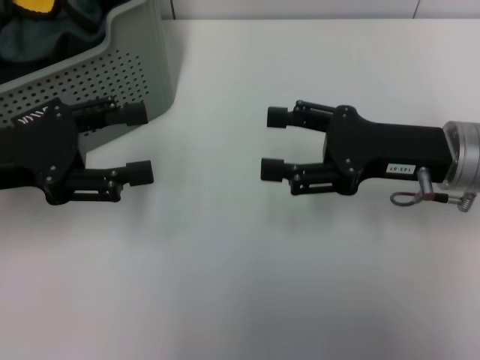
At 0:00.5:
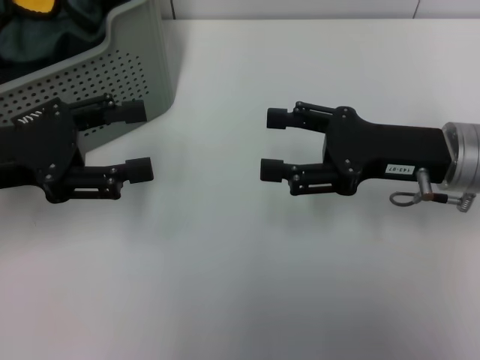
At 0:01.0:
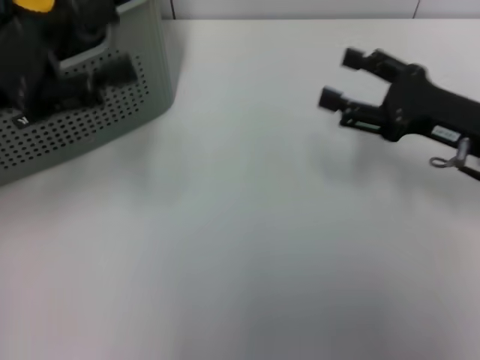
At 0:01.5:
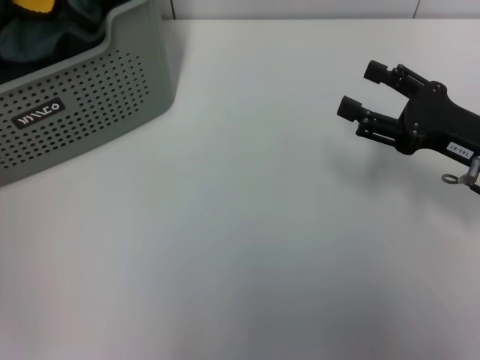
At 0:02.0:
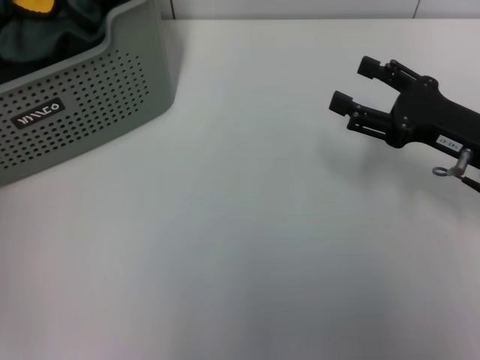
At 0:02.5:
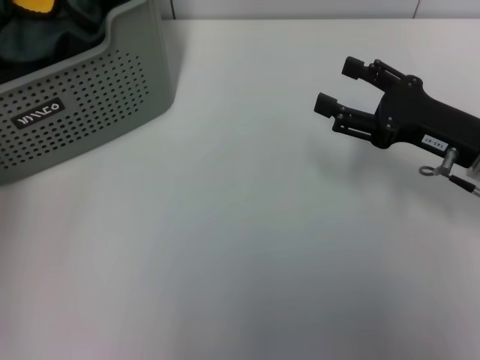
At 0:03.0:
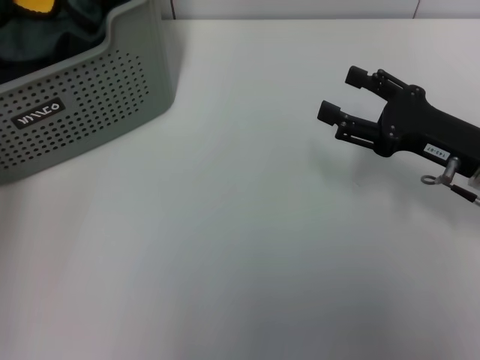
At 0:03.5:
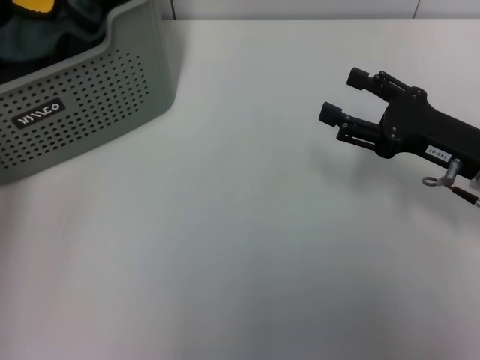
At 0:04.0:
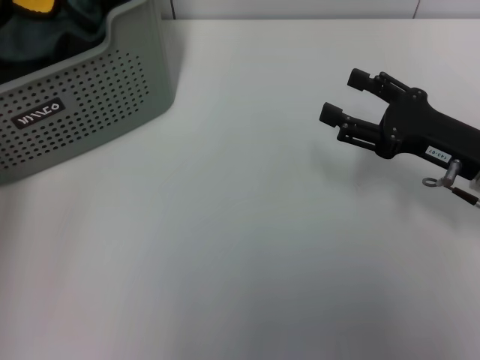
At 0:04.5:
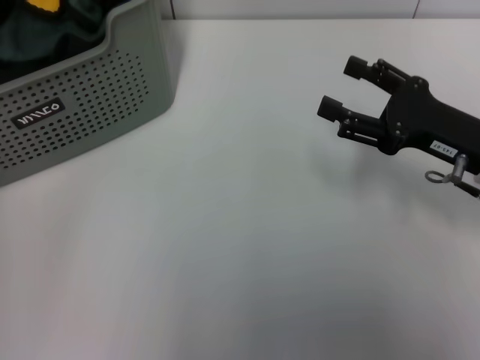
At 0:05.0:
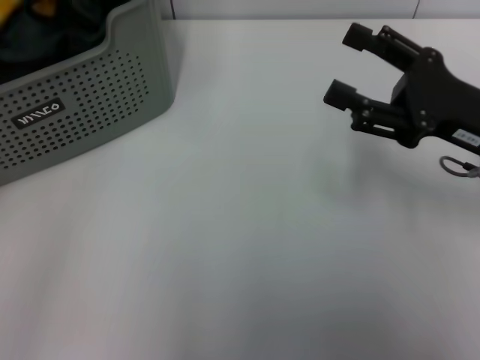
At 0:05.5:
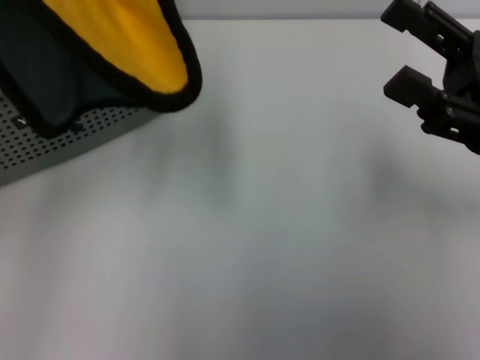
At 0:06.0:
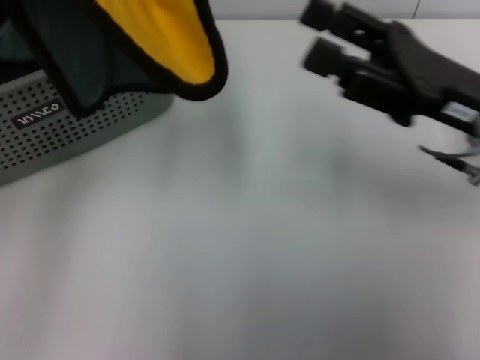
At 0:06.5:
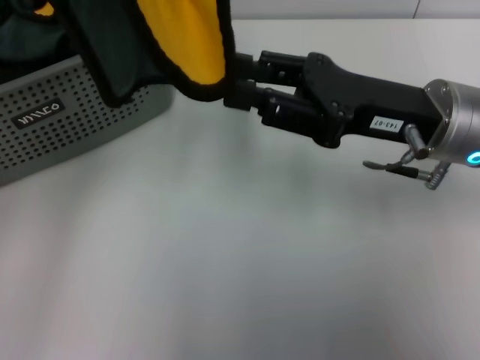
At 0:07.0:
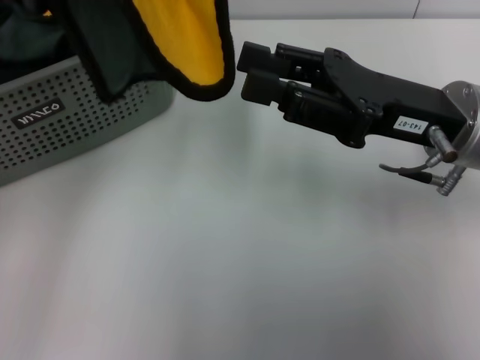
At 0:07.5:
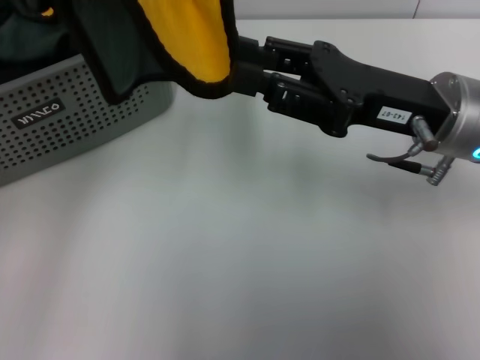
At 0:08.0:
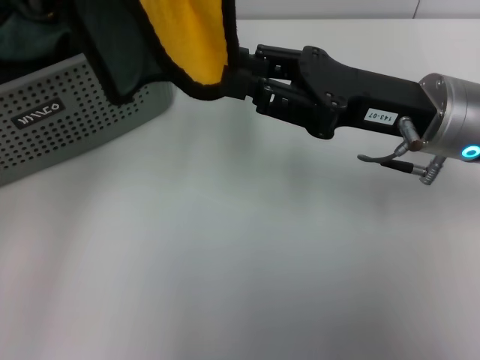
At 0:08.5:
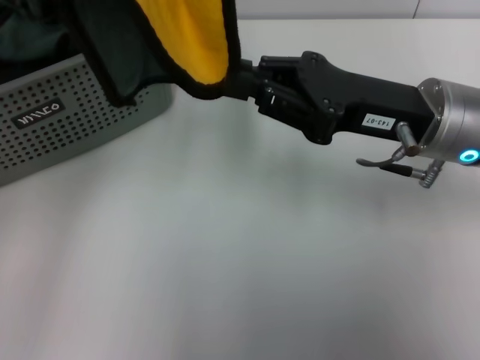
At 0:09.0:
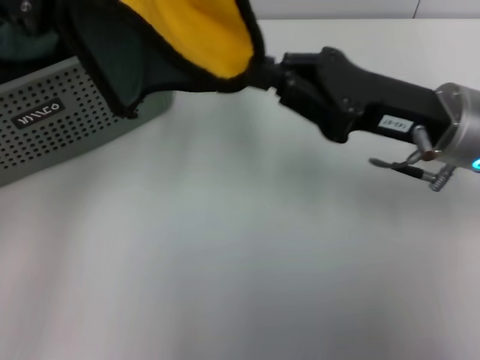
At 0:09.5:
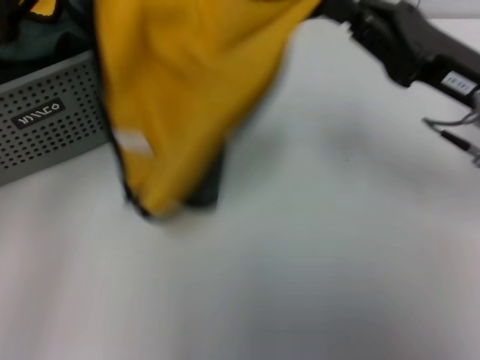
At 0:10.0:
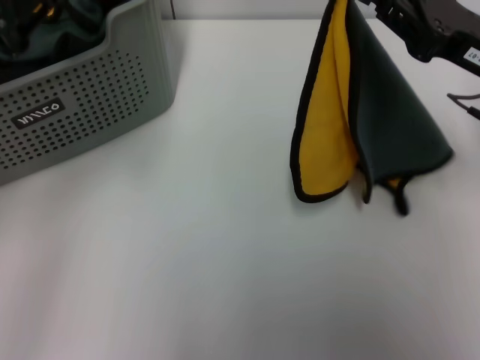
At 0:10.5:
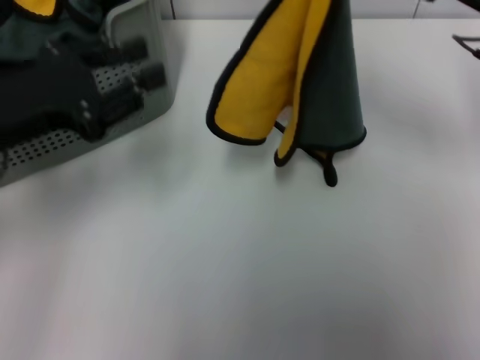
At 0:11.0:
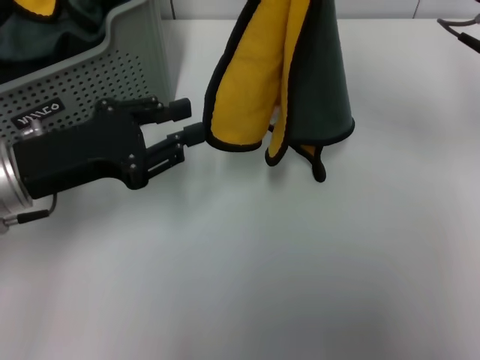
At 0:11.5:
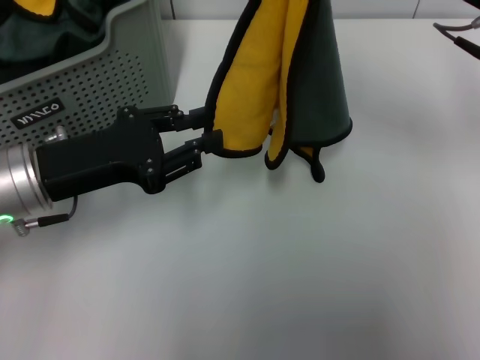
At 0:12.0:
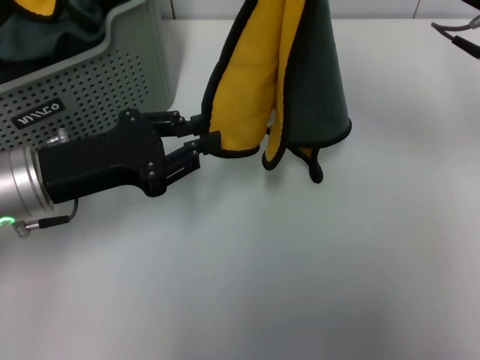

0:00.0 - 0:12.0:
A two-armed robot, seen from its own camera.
Task of the whole recording: pick up the towel from the storage box and lay it flat on the table.
Step, 0:00.0 - 0:03.5: Pick up a towel with the left gripper.
Step, 0:04.5 - 0:08.0: Spread the towel flat with the left gripper.
0:00.0 - 0:02.0: The right gripper moves to the right, roughly 5 cm, while the left gripper travels upward and forward by approximately 15 cm.
0:04.0 - 0:06.0: The right gripper moves upward, about 5 cm; the left gripper is displaced backward, upward and to the right by roughly 15 cm.
0:06.0 - 0:08.0: The right gripper closes its fingers.
0:08.0 - 0:10.0: The left gripper changes place by about 5 cm. The right gripper goes about 10 cm to the right, and closes.
0:10.0 - 0:12.0: The right gripper heads upward, covering approximately 5 cm; the left gripper is displaced downward and to the right by roughly 15 cm.

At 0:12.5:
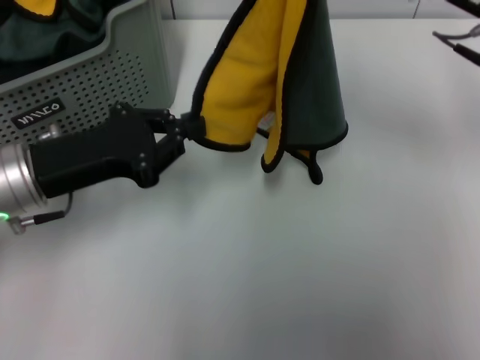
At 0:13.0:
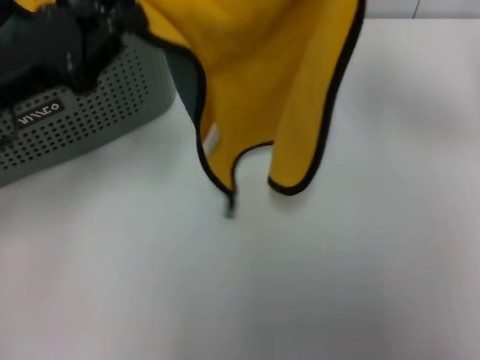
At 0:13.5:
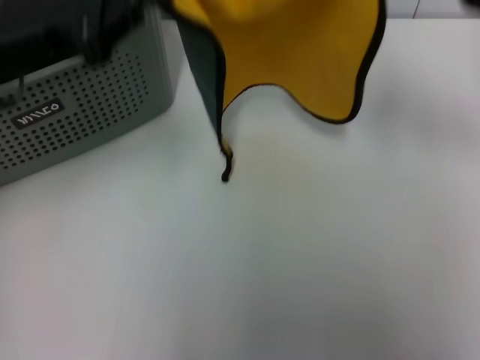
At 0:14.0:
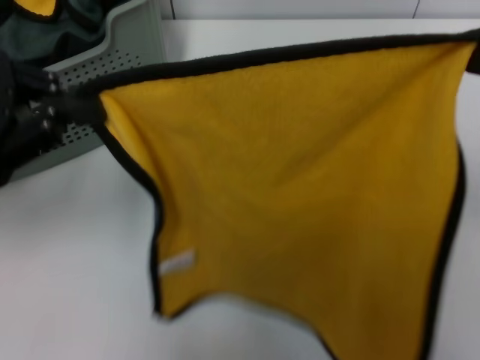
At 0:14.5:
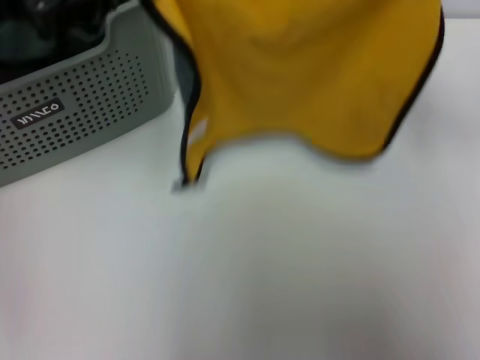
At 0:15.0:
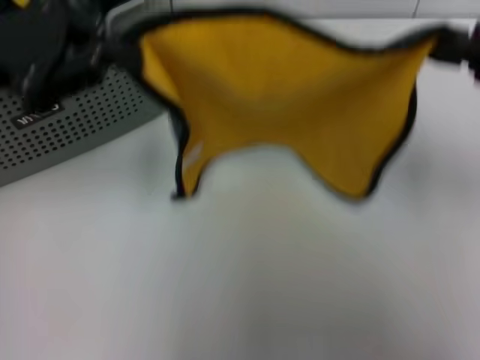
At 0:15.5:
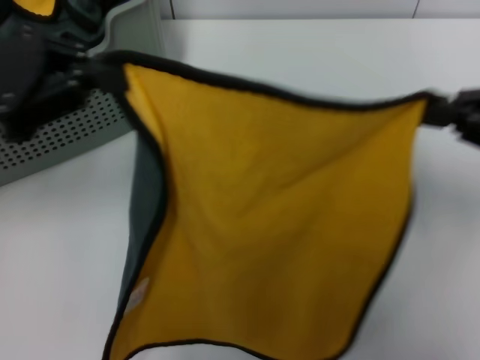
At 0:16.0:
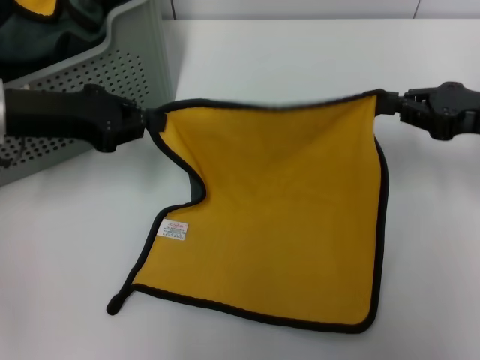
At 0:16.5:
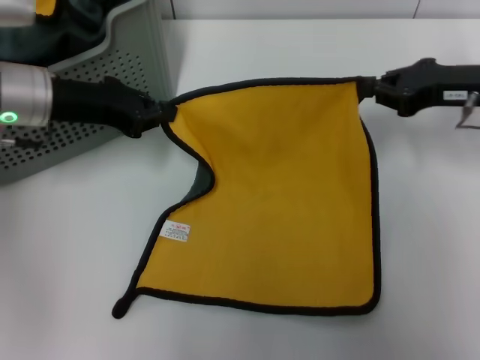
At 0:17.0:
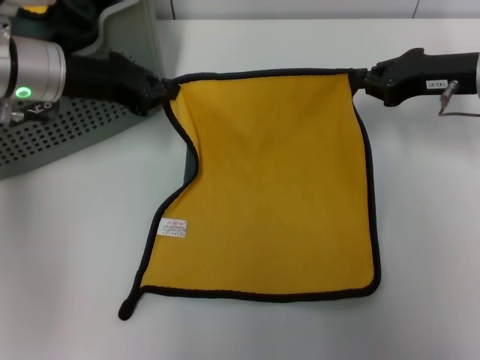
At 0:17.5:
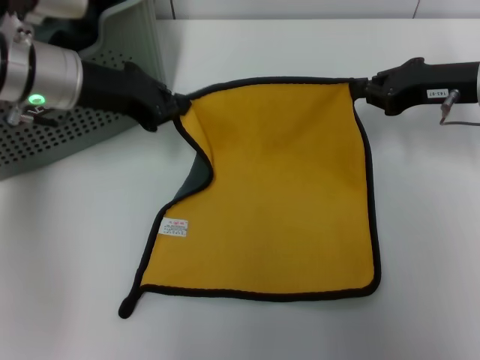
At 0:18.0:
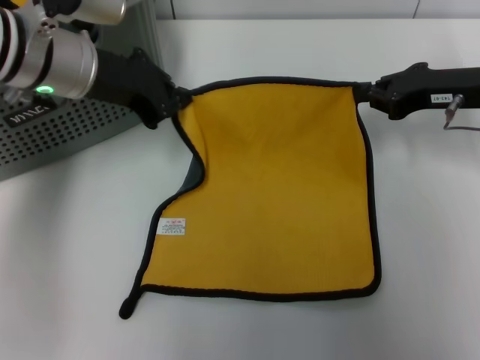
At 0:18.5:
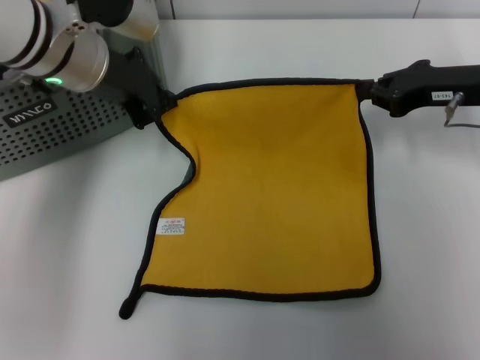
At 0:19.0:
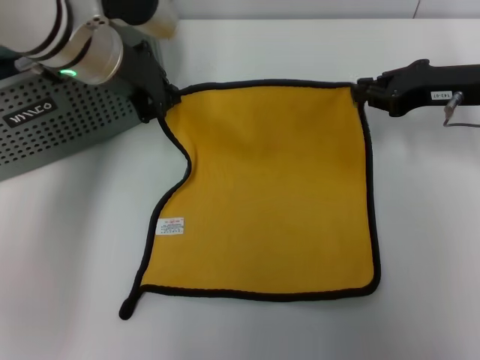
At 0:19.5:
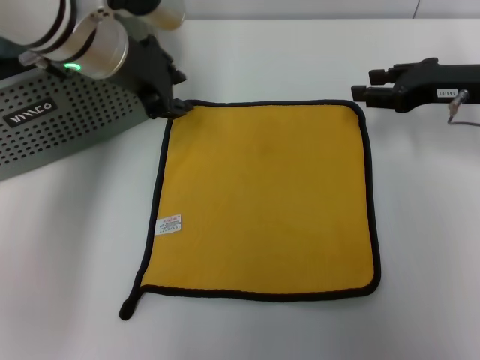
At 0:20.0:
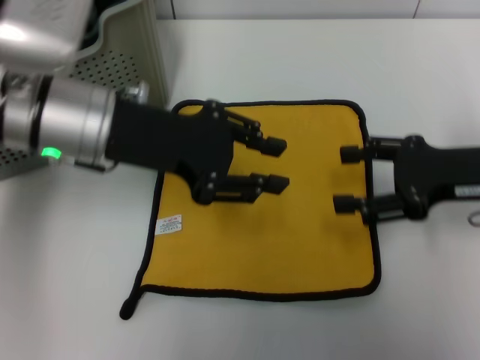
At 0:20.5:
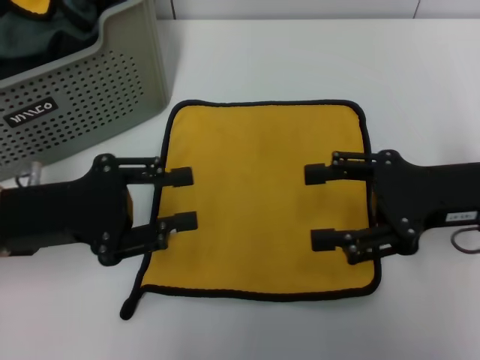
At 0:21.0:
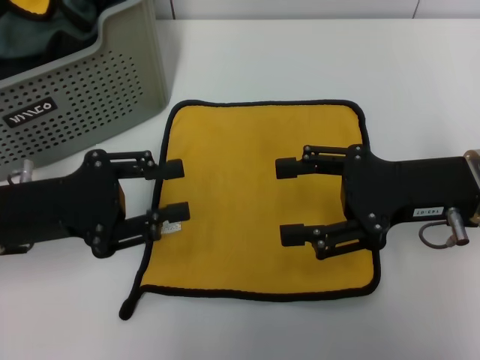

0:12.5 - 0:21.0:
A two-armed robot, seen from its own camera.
Task of the whole recording: pick up the towel from the storage box and lay it flat on the table.
Step, 0:12.5 - 0:19.0: Spread the towel flat with the right gripper.
0:12.5 - 0:14.5: The right gripper shifts some 10 cm to the right, and goes backward and returns, some 10 cm each way. The left gripper heads upward and forward, covering roughly 15 cm.
0:14.5 - 0:16.5: The right gripper is displaced downward and to the left by approximately 10 cm, while the left gripper shifts approximately 10 cm downward.
0:16.5 - 0:19.0: The left gripper is displaced to the right and upward by some 10 cm.
0:19.0 - 0:21.0: The left gripper shifts roughly 20 cm backward, to the left and downward, and opens up, while the right gripper travels backward by approximately 10 cm, and opens up.

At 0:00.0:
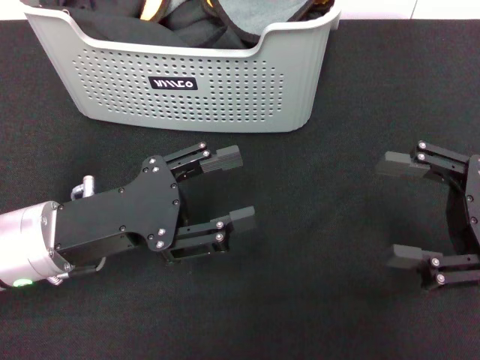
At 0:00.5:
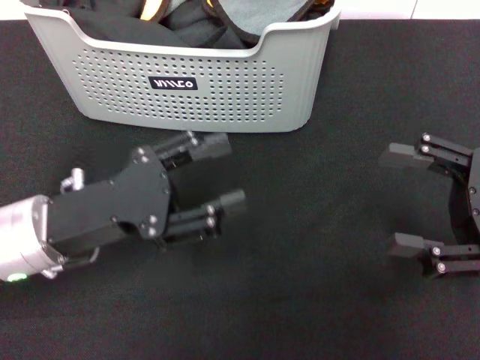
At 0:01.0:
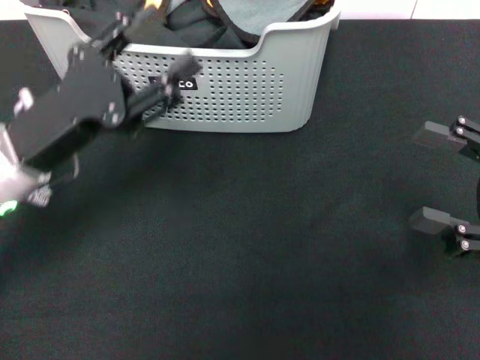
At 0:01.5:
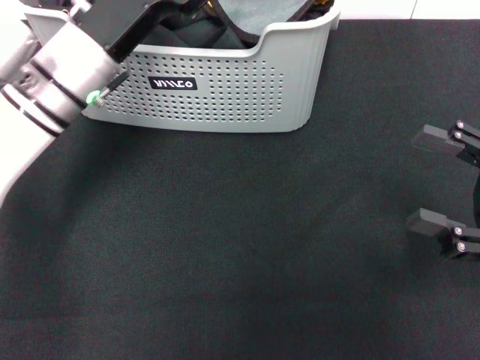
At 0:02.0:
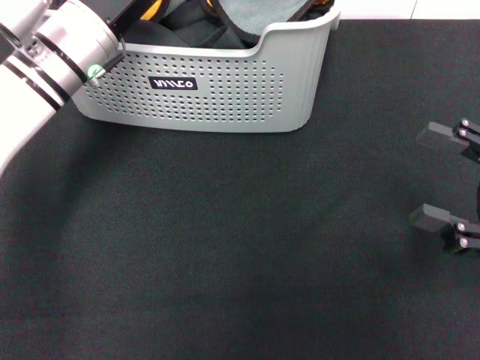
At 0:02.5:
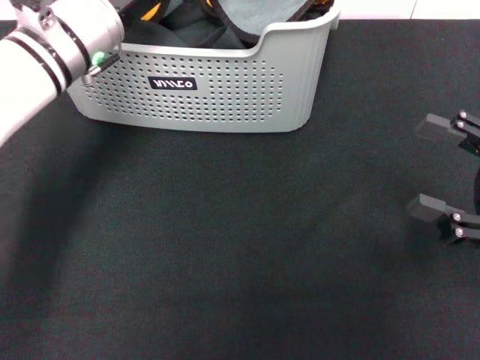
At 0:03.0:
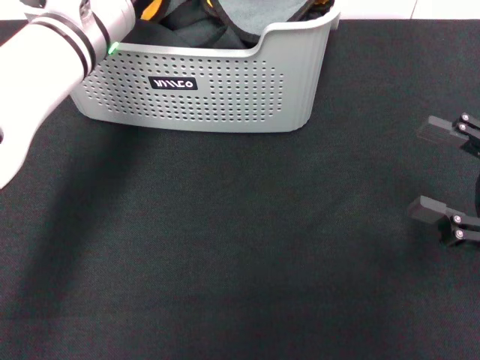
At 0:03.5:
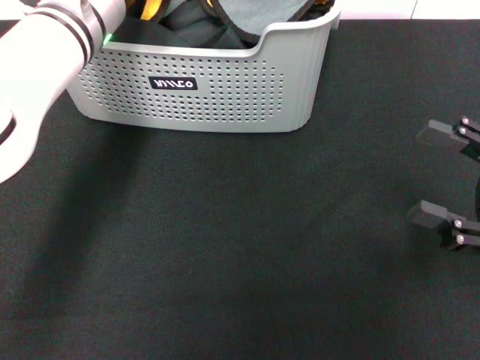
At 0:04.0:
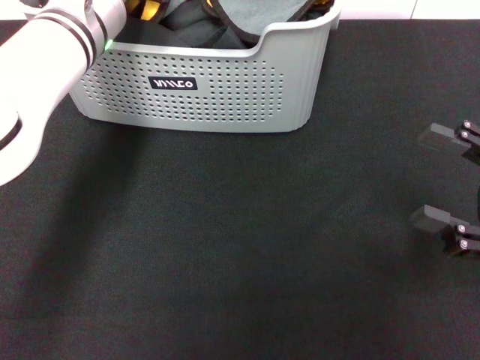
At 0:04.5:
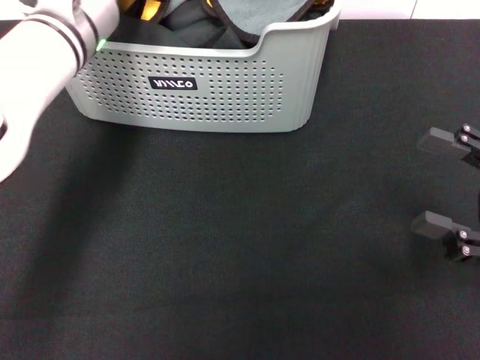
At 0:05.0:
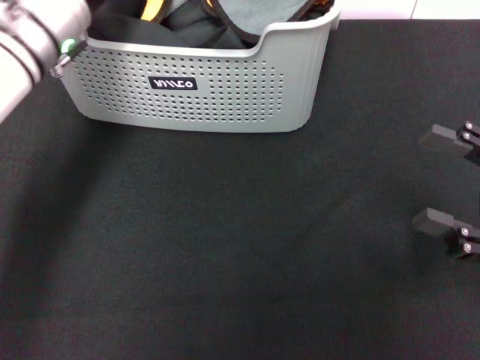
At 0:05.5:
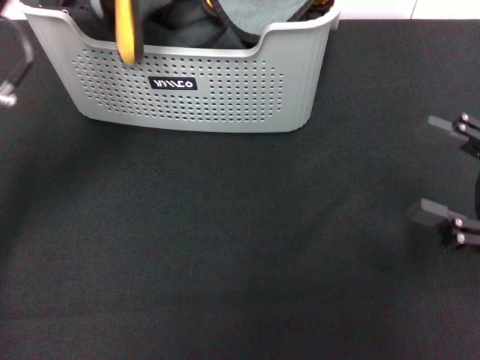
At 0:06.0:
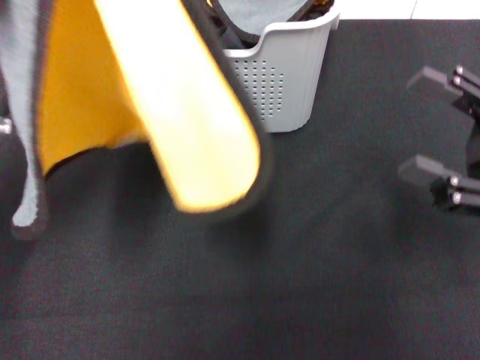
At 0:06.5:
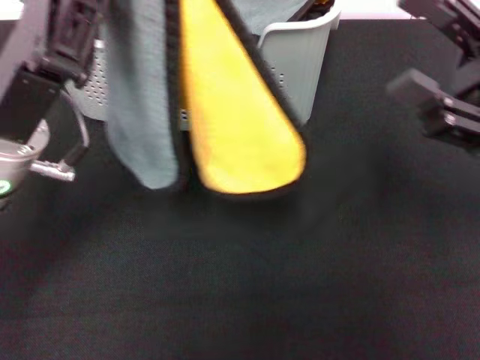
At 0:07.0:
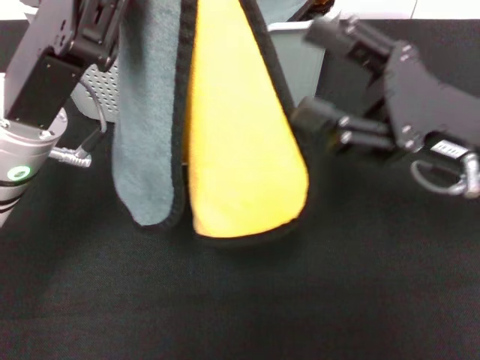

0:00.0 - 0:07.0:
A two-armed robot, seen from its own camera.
Task of the whole recording: pick up the towel from the storage box and lay it flat on the black tablecloth.
Step, 0:00.0 - 0:05.0: Pick up a towel with the left gripper.
0:00.0 - 0:02.0: The left gripper goes about 15 cm forward.
0:03.5 - 0:05.0: The left gripper closes up.
0:05.0 - 0:07.0: The left gripper travels backward by approximately 10 cm; the right gripper heads to the left and forward, covering some 10 cm.
